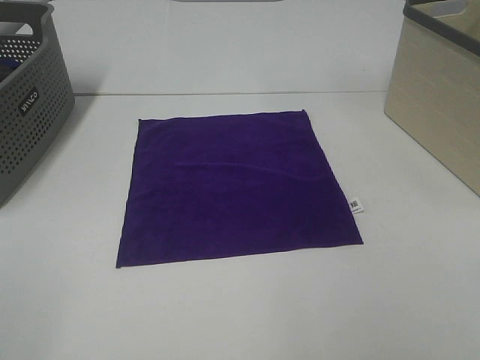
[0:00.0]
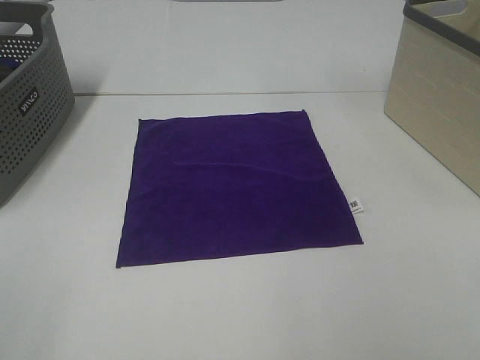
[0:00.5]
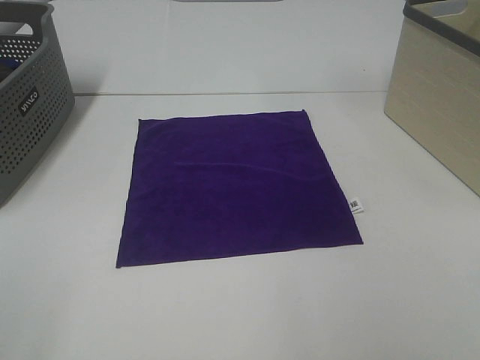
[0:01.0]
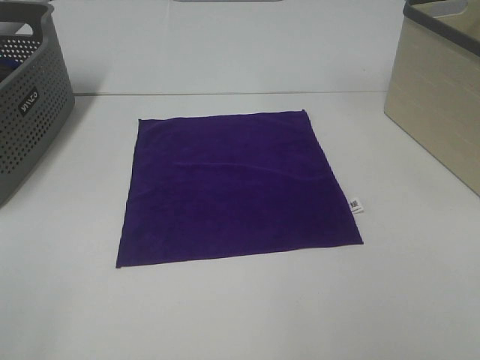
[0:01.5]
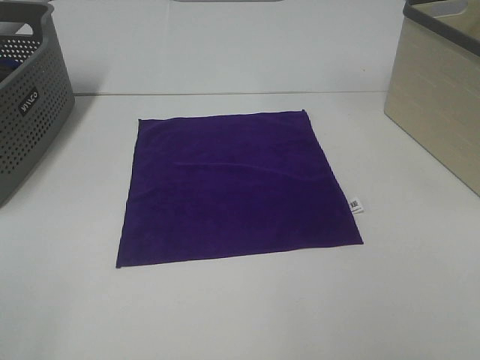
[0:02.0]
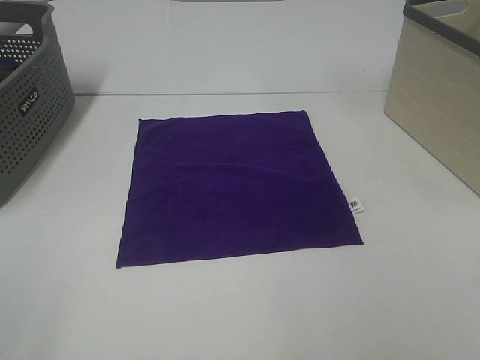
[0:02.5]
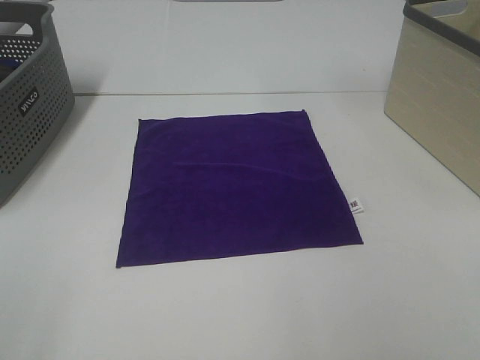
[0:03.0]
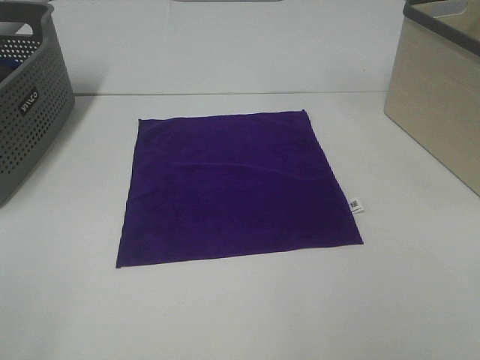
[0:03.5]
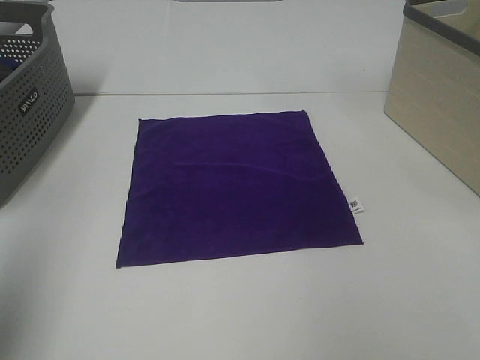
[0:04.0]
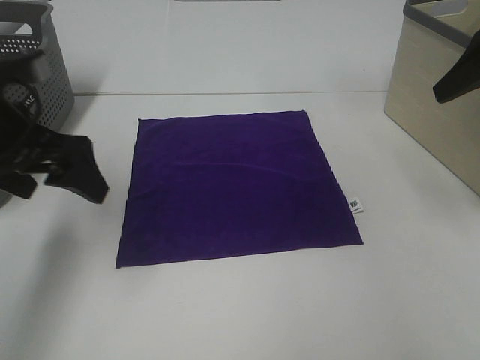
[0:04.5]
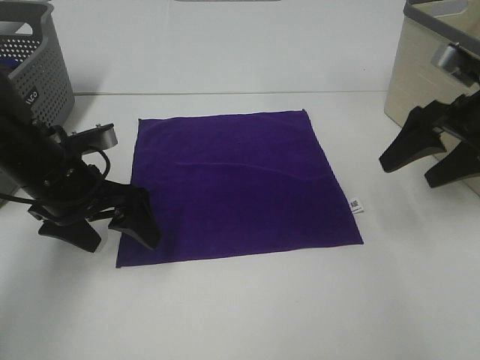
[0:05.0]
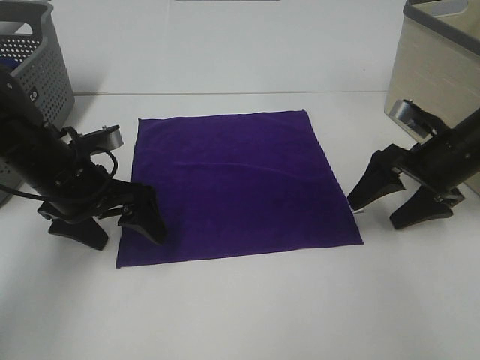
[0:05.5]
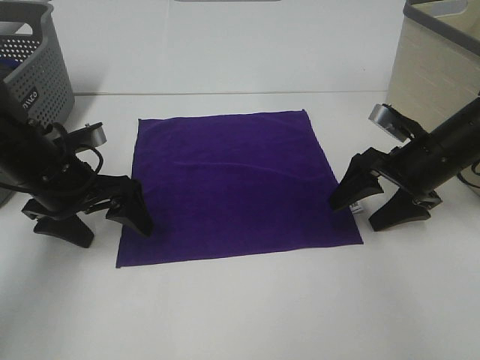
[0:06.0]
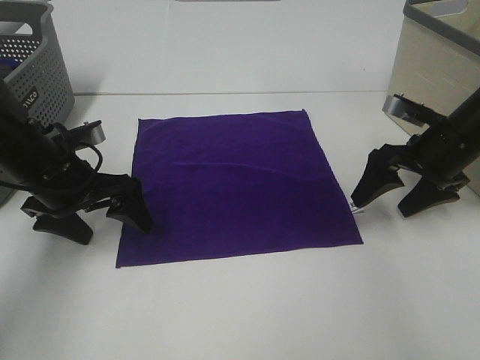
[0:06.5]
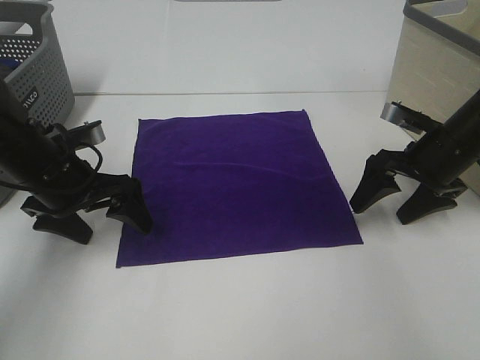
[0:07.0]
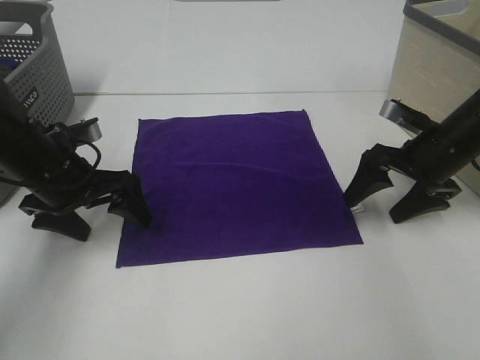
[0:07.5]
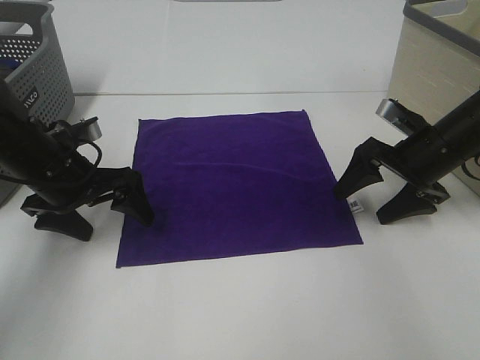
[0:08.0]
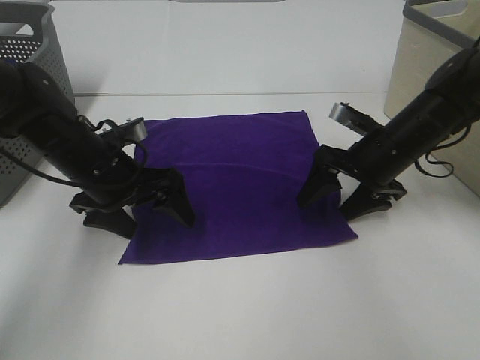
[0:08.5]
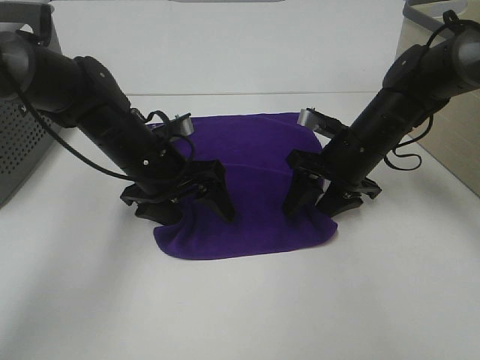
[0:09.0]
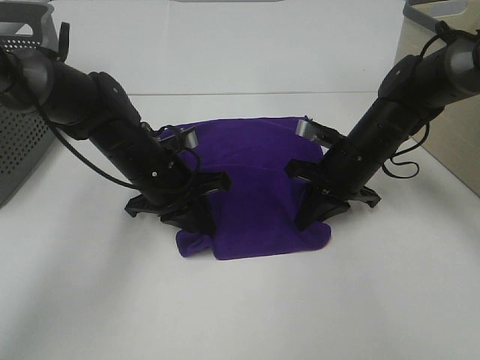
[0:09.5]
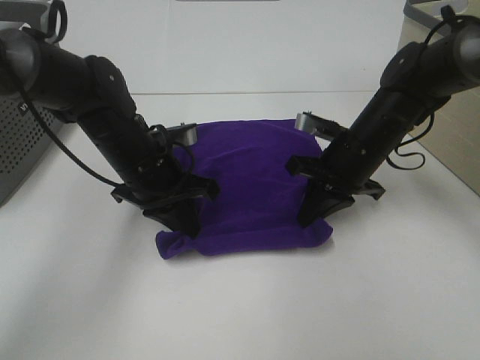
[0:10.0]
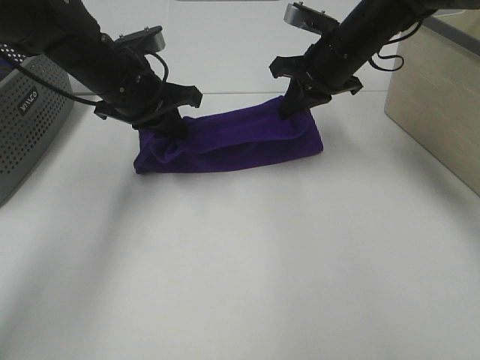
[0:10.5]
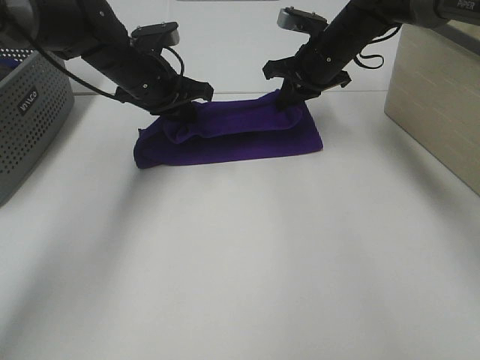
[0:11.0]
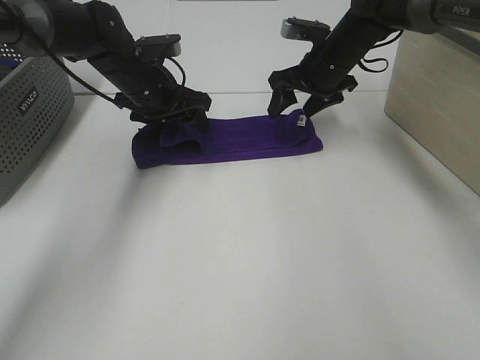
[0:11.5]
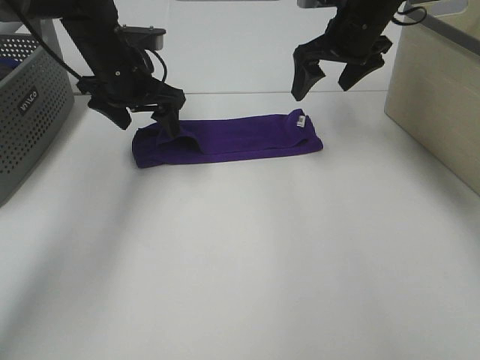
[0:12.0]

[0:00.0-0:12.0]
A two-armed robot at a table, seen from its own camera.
Task of the whole recording: Fold towels.
Step, 0:00.0 to 0:09.5: Left hand: grab the bottom left corner of purple towel.
Step, 0:00.0 to 0:09.5: Right hand: grab the bottom right corner of purple towel.
Step, 0:10.0 to 0:11.0: Left hand: fold the purple towel up.
Step, 0:10.0 to 0:11.0: Right hand: fold the purple towel up.
0:00.0 to 0:02.0: Both grippers stay put.
0:02.0 to 0:04.0: The left gripper is displaced forward by about 15 cm.
0:04.0 to 0:06.0: The right gripper shifts roughly 30 cm downward and forward. The left gripper is displaced downward, forward and to the right by about 30 cm.
0:06.0 to 0:08.0: There are only small adjustments of the grippers.
0:08.0 to 0:10.0: The right gripper shifts roughly 10 cm to the left, and closes. Meanwhile the left gripper is displaced to the right by some 10 cm, and closes up.
0:10.0 to 0:12.0: Both grippers travel together forward and upward, approximately 15 cm. The left gripper opens up. The right gripper opens.

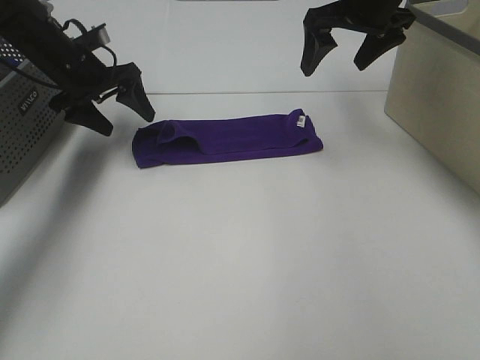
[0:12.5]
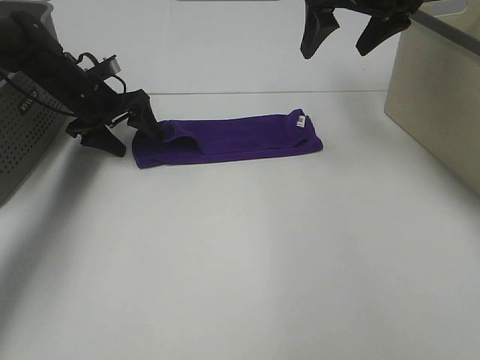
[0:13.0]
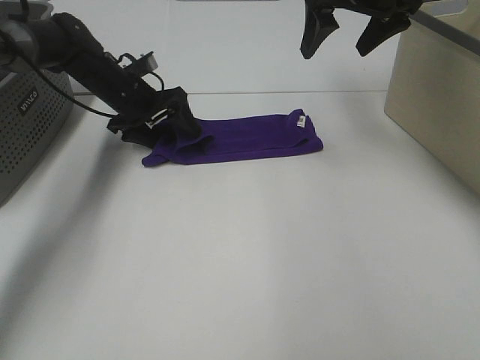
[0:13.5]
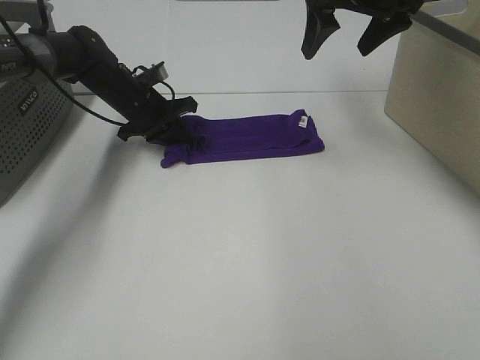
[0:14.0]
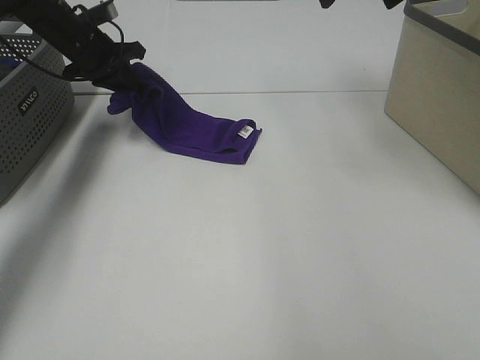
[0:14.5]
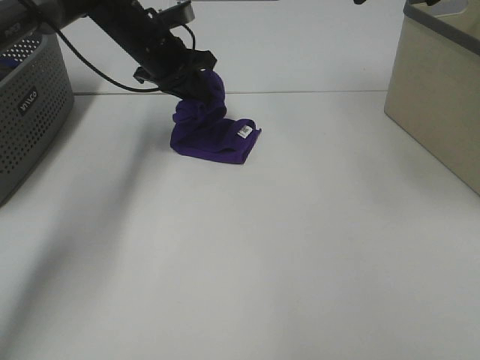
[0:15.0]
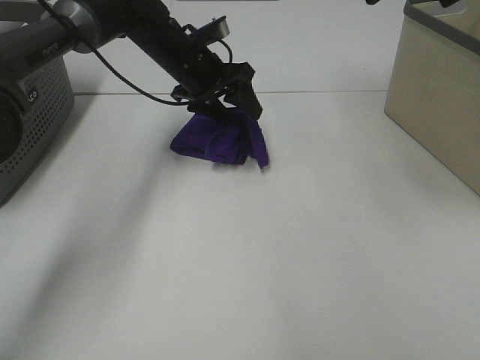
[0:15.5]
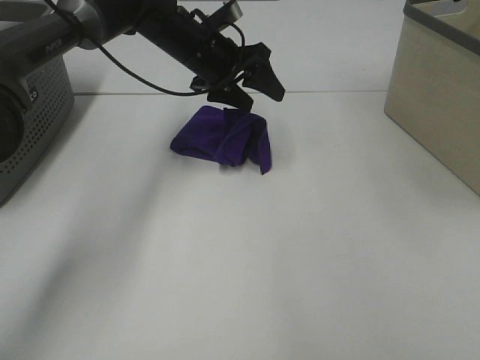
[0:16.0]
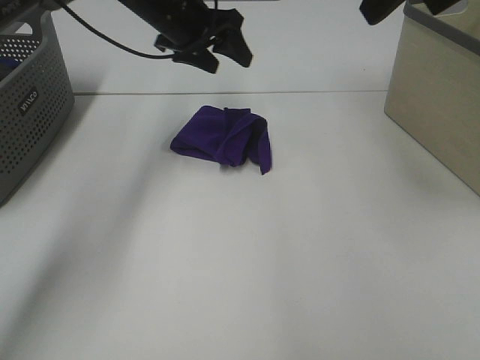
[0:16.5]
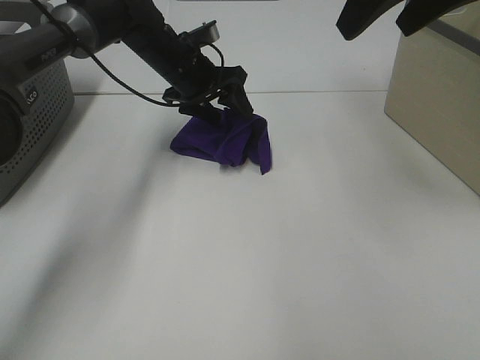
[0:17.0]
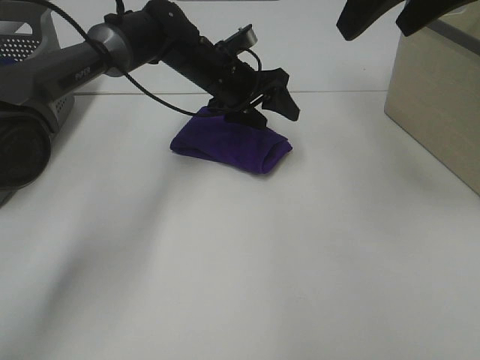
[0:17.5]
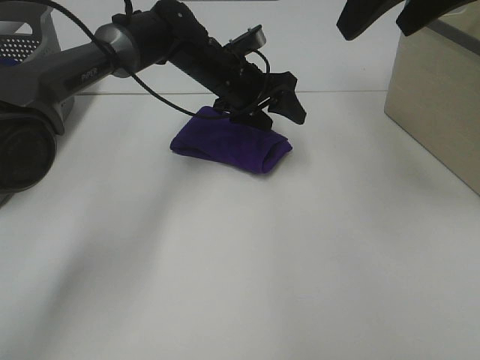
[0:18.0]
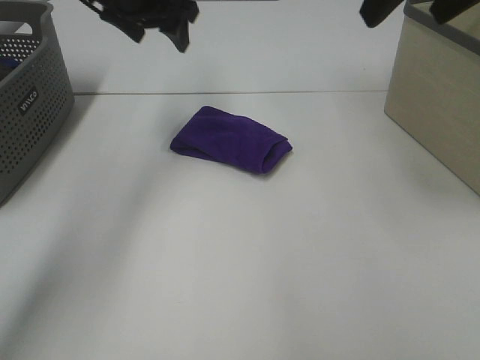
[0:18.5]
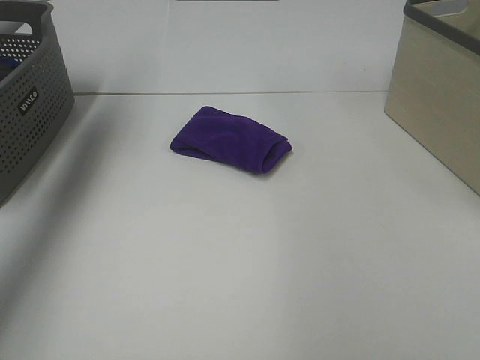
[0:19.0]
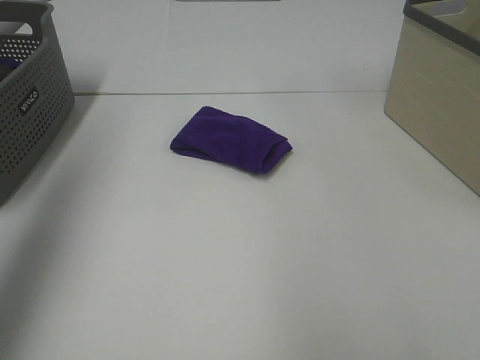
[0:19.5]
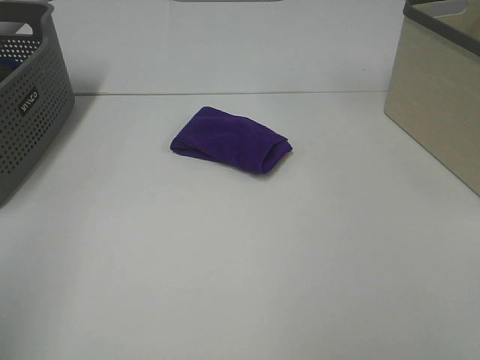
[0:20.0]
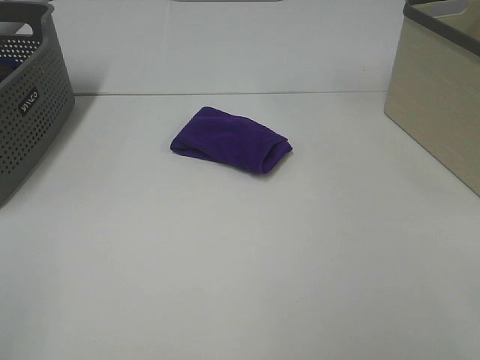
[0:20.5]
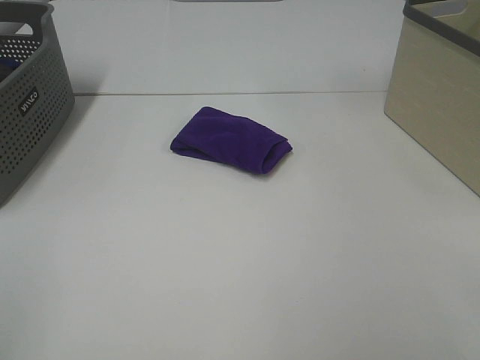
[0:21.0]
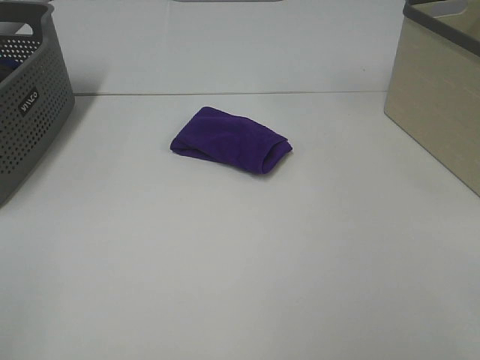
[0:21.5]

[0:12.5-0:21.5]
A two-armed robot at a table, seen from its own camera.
Task of the whole recording: Fold towels.
Step, 0:12.5 to 0:15.0: Left hand: fold the purple towel from left to right.
Step, 0:15.5 to 0:18.0: Left hand: adjust the purple towel.
0:12.5 to 0:14.5: The left gripper moves forward, some 5 cm, travels downward and back again, some 10 cm each way, and closes its fingers. The right gripper heads upward and backward, covering approximately 10 cm.
0:14.5 to 0:17.0: The right gripper shifts roughly 10 cm backward; the left gripper travels to the right by some 15 cm, and opens up.
0:17.0 to 0:19.5: The left gripper shifts roughly 40 cm backward, upward and to the left. Meanwhile the right gripper goes roughly 25 cm backward and to the right.
0:19.5 to 0:21.5: The left gripper is displaced backward and downward by approximately 25 cm.
